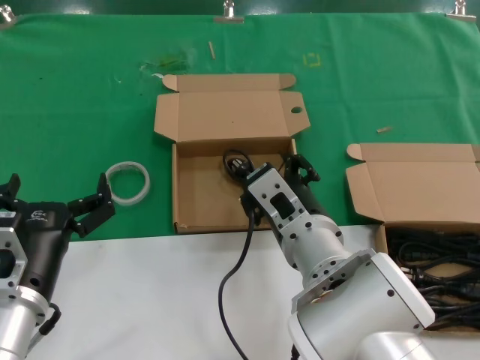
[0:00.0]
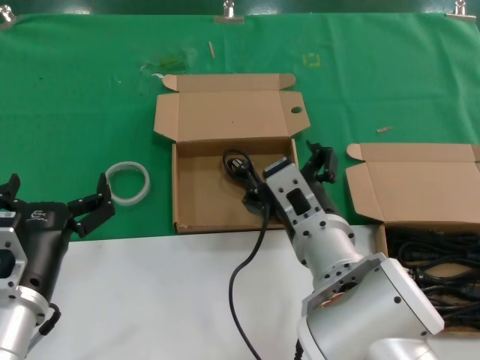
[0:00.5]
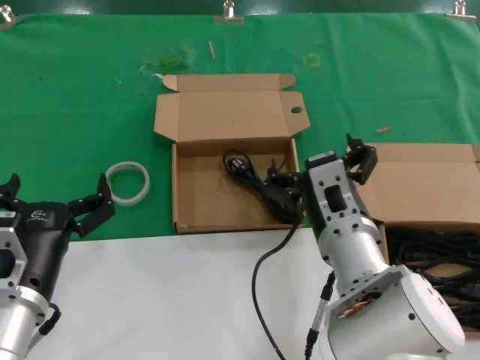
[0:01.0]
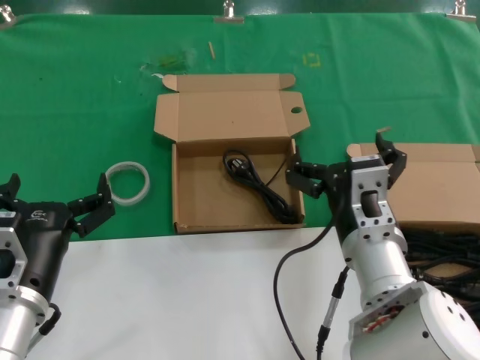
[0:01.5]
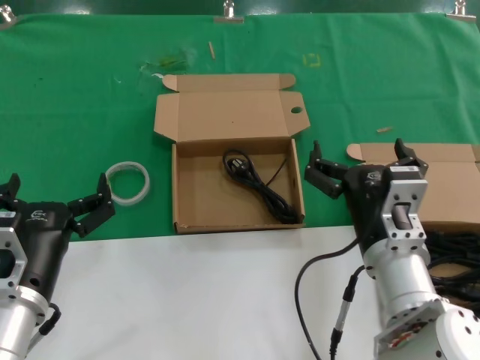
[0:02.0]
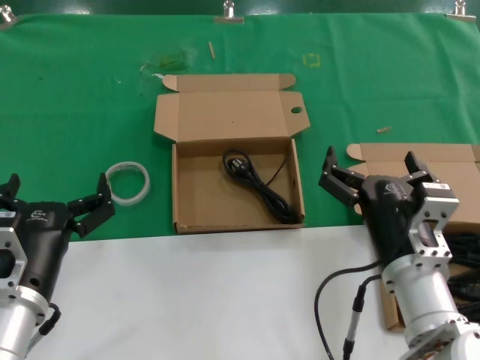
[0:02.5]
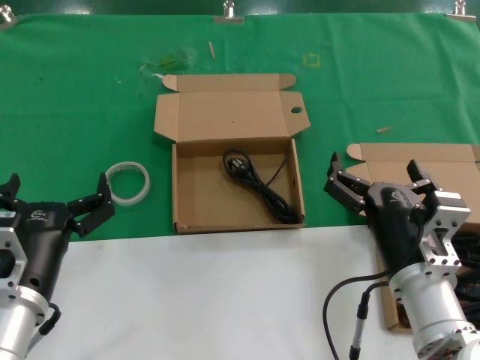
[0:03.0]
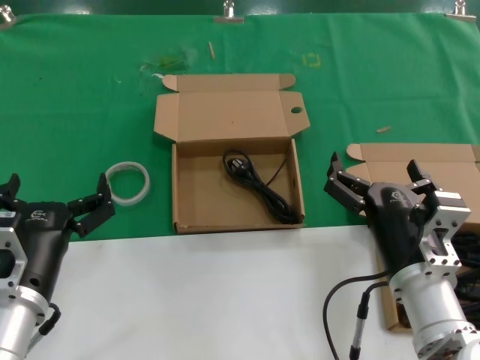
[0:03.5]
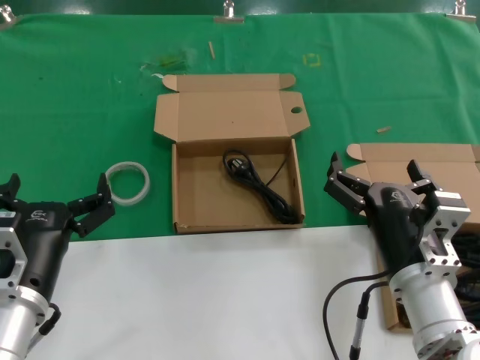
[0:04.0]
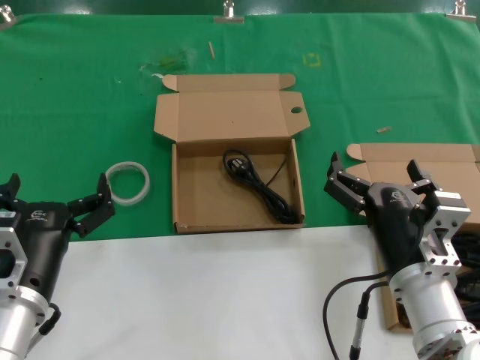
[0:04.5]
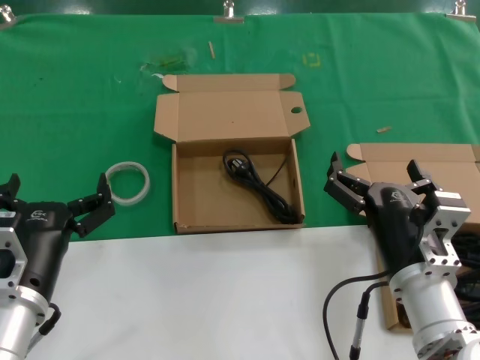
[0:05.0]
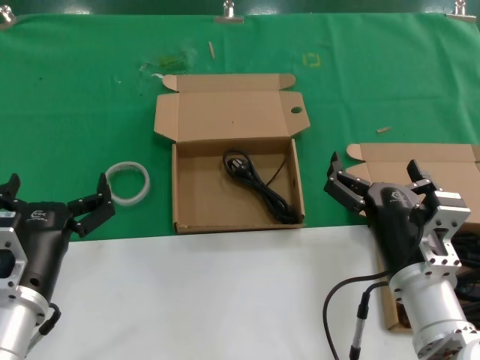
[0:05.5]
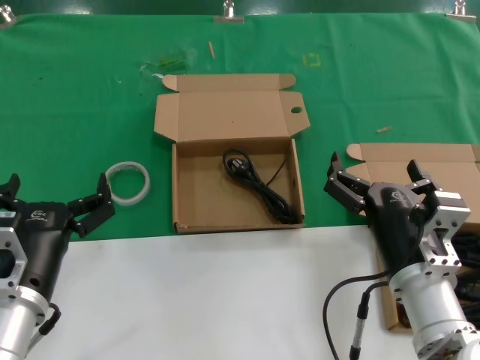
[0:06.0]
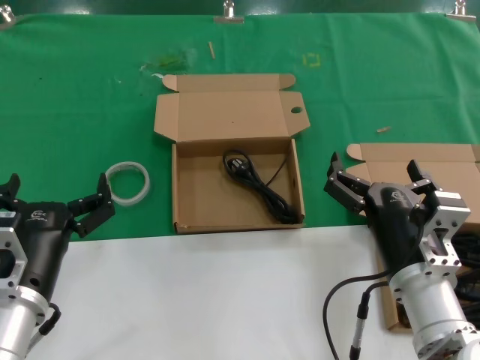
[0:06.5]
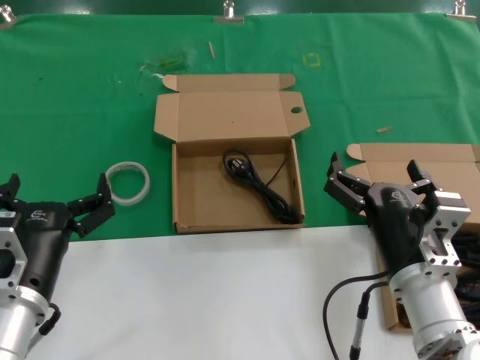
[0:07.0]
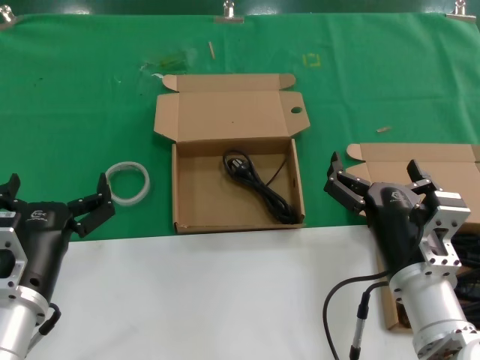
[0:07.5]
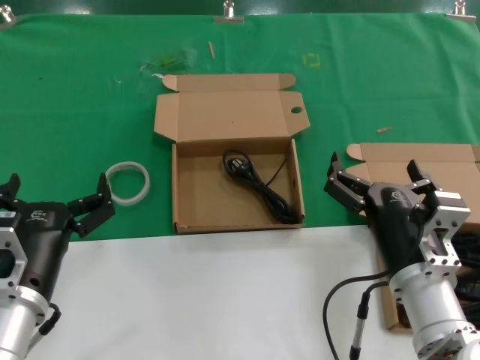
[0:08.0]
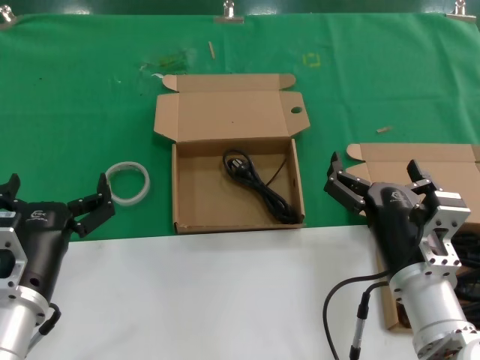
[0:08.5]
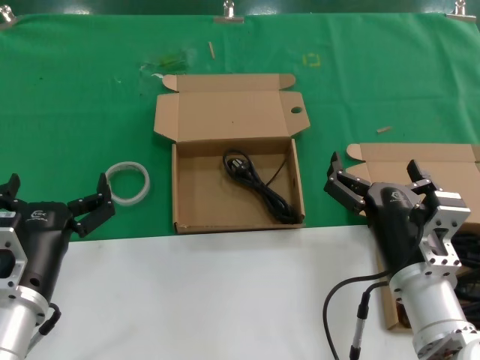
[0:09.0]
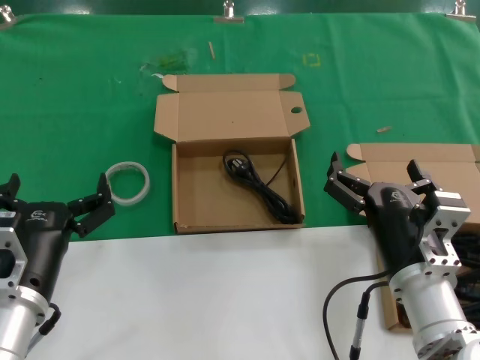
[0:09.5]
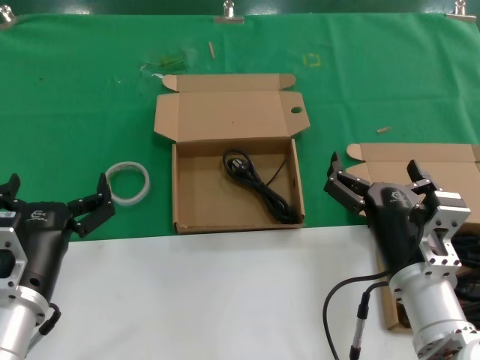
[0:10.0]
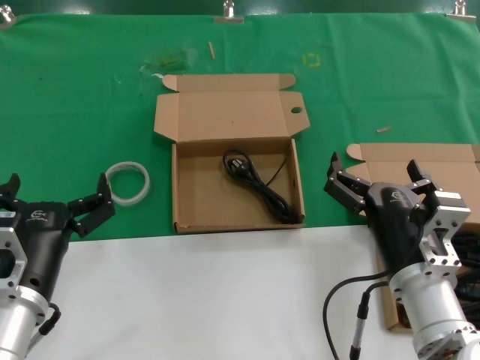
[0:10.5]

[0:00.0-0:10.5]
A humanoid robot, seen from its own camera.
Task of the whole recording: take the parts from the box containing them and put them into an empty box.
0:00.0 to 0:02.0: The right hand shifts about 10 cm to the right.
0:02.0 to 0:04.0: There are only small adjustments of the hands.
0:04.0 to 0:10.5: Neither hand changes place.
